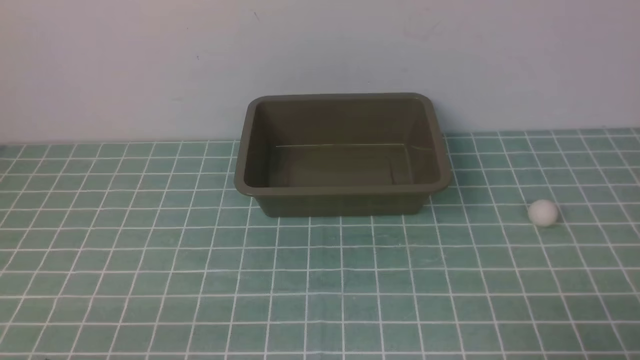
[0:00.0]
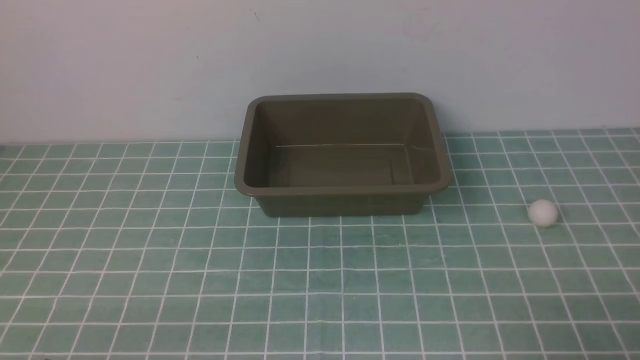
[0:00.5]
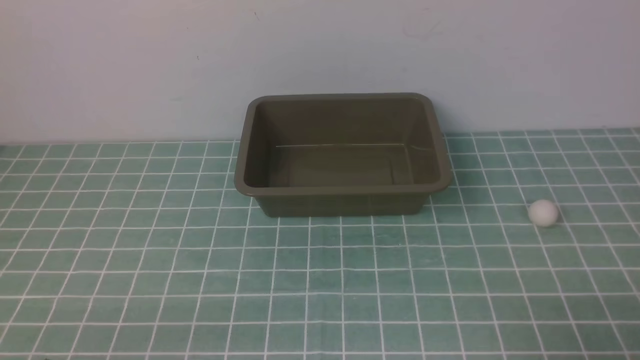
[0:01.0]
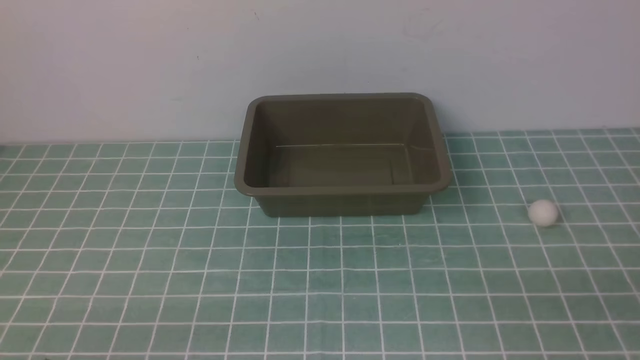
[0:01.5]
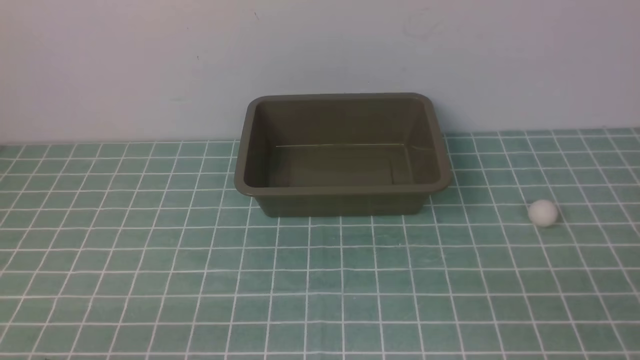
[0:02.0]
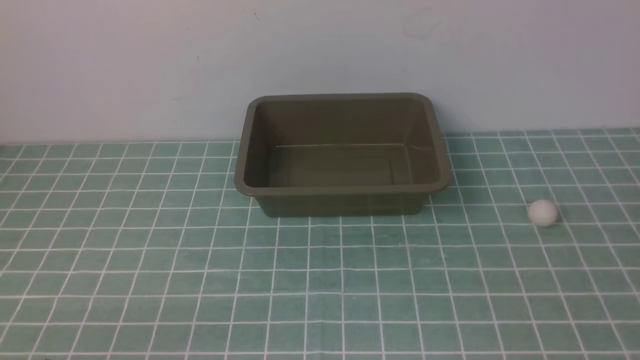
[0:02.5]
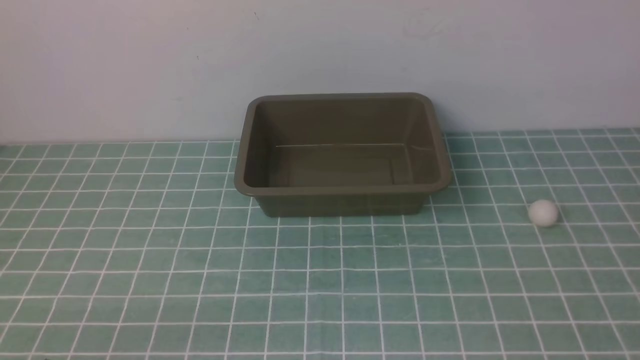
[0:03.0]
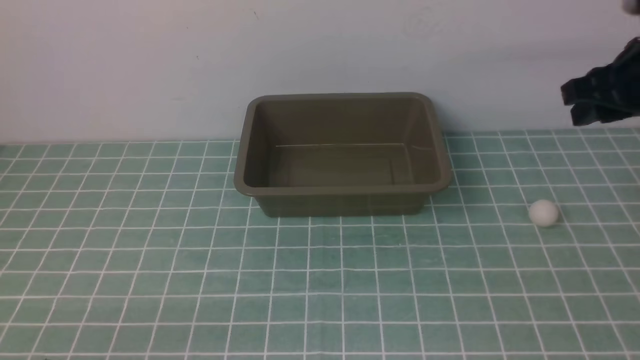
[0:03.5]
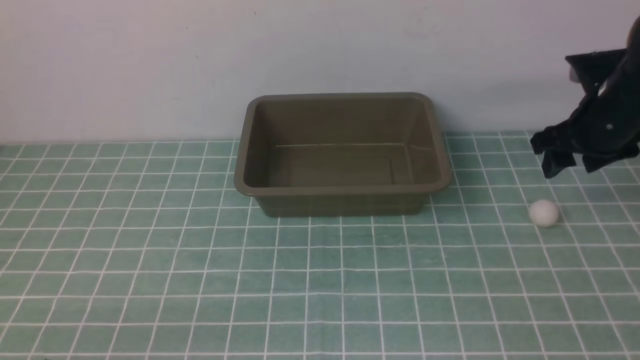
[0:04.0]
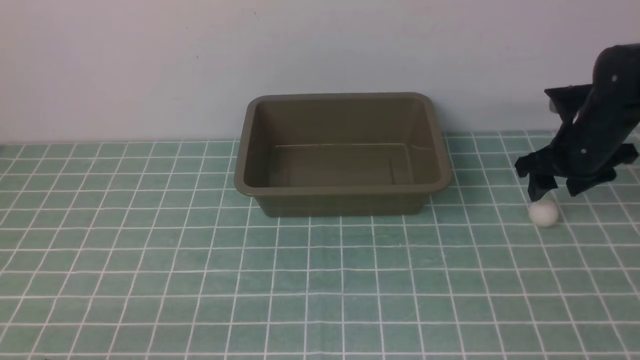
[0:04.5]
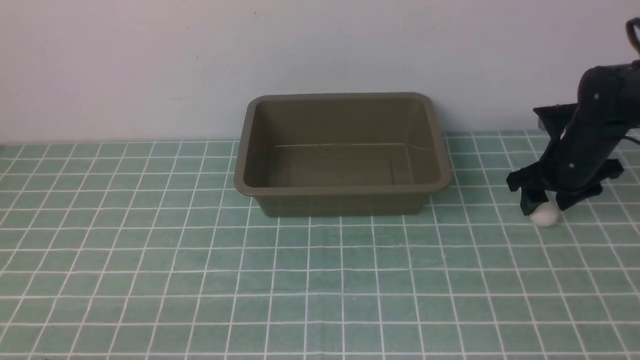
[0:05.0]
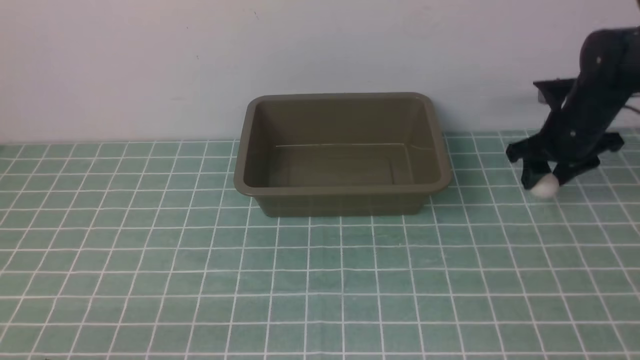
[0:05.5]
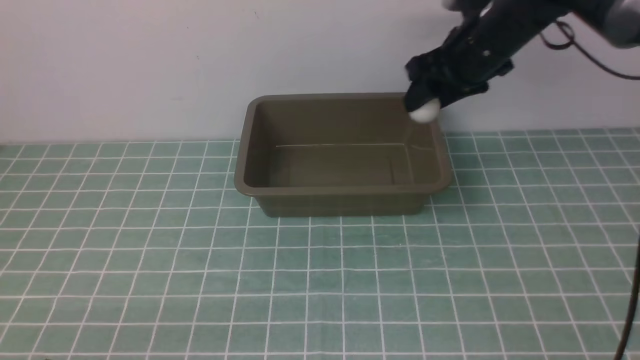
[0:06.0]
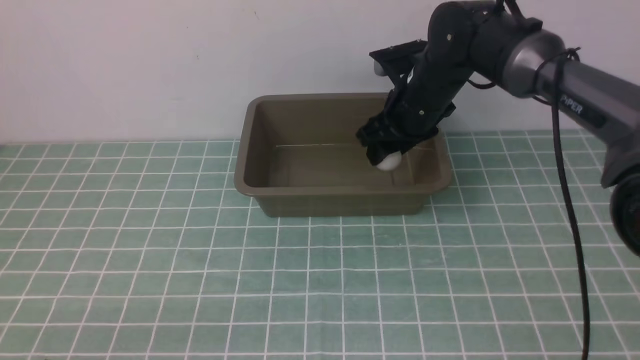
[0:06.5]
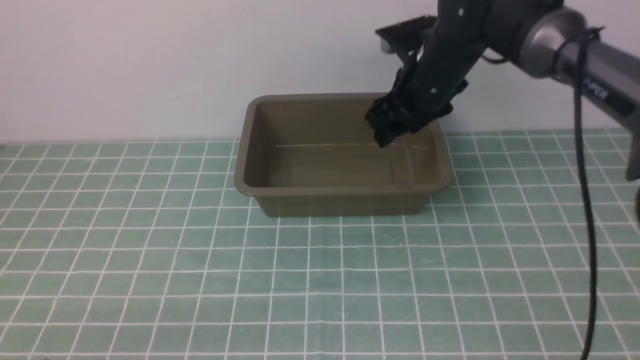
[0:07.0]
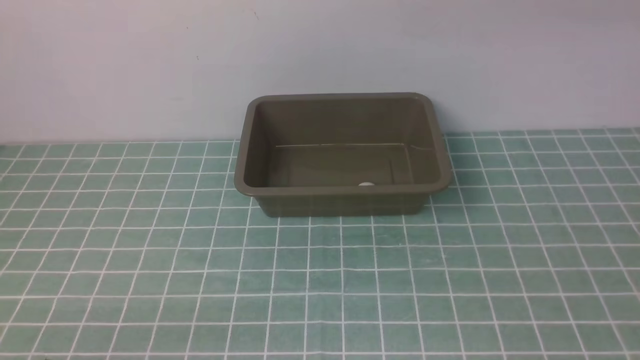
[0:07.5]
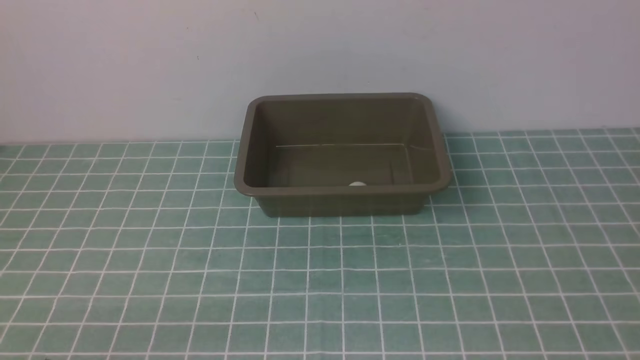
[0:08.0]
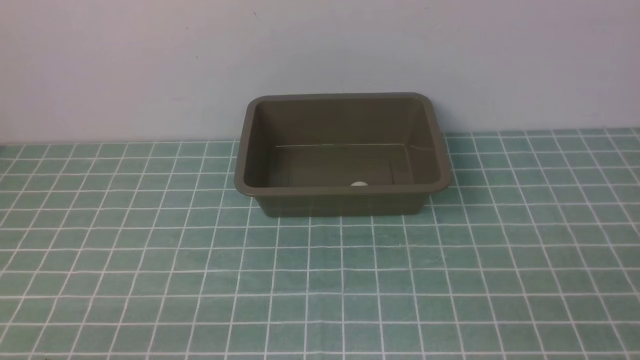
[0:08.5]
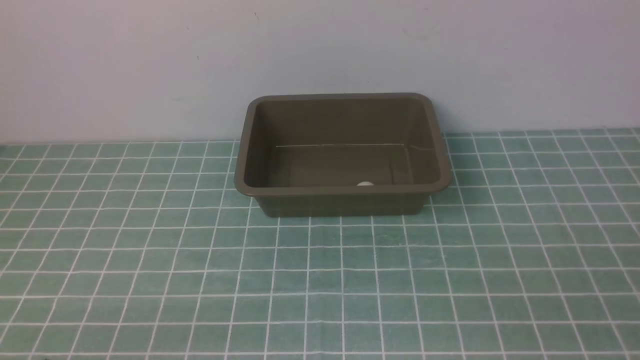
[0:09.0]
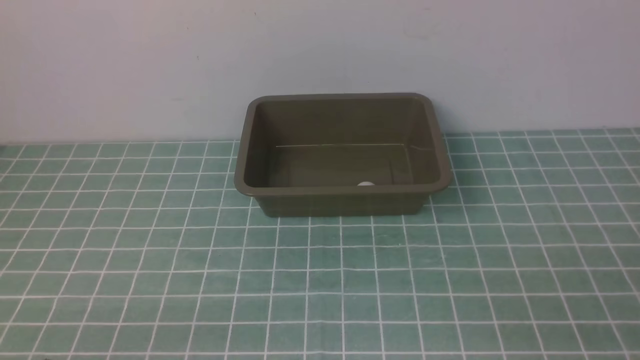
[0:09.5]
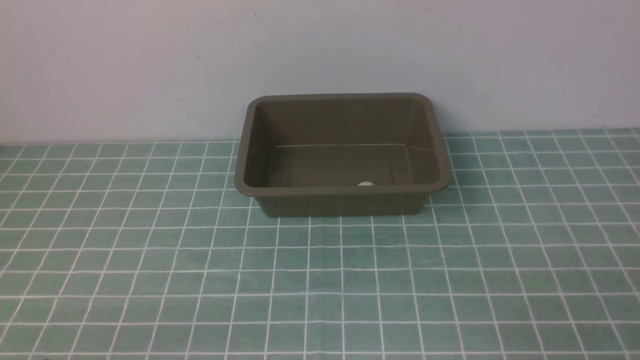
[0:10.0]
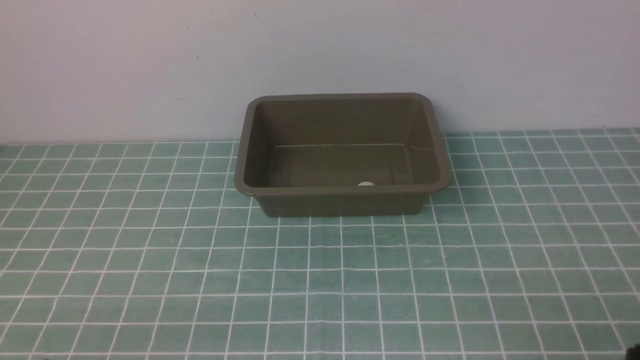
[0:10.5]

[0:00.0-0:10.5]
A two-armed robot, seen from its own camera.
Step, 0:00.0 to 0:05.5: use the right arm to clamp the table tennis ball closest to it.
Step, 0:06.0 to 0:06.5: use the right arm to put the table tennis ball into the box.
0:02.0 to 0:04.0: The right gripper is displaced forward by some 35 cm.
0:04.0 to 0:06.5: The right gripper is displaced to the left by about 20 cm.
0:06.5 to 0:08.5: The right gripper travels backward and to the right by some 50 cm, and closes its fingers.

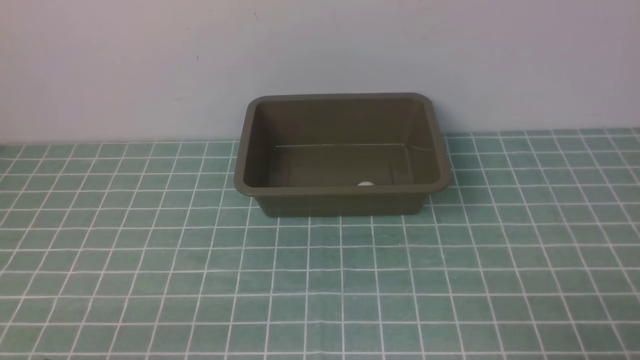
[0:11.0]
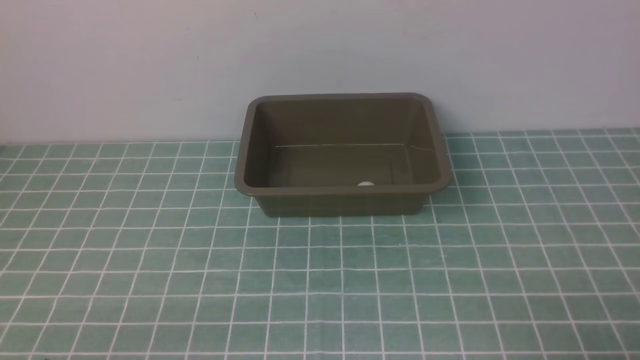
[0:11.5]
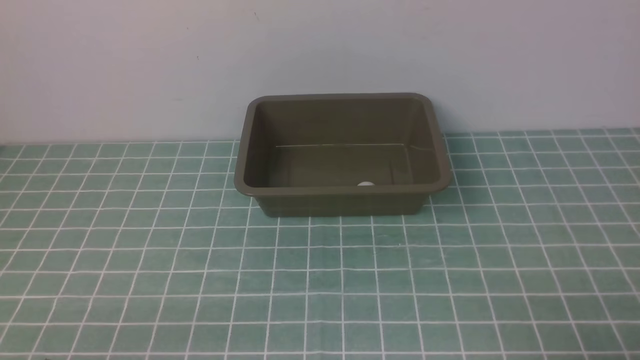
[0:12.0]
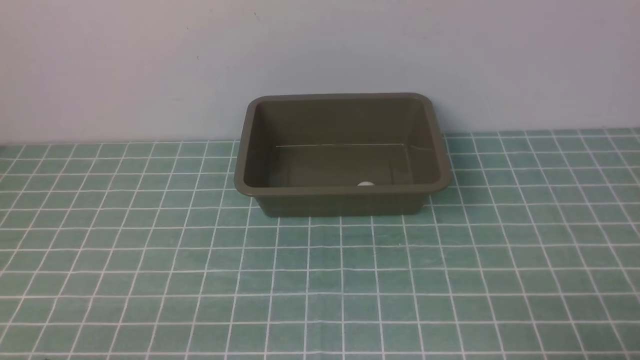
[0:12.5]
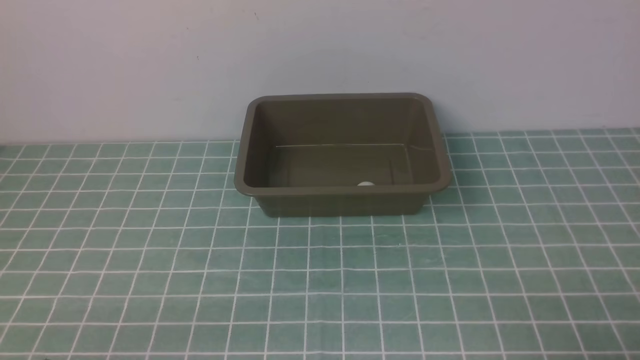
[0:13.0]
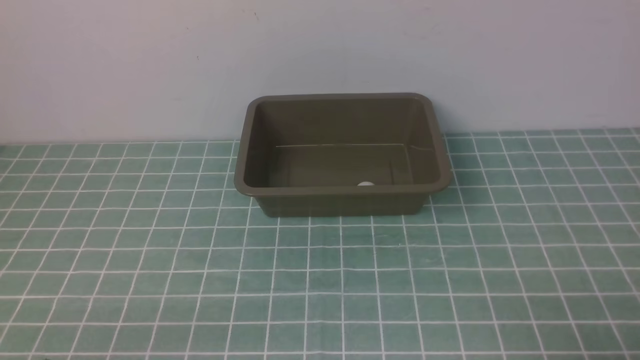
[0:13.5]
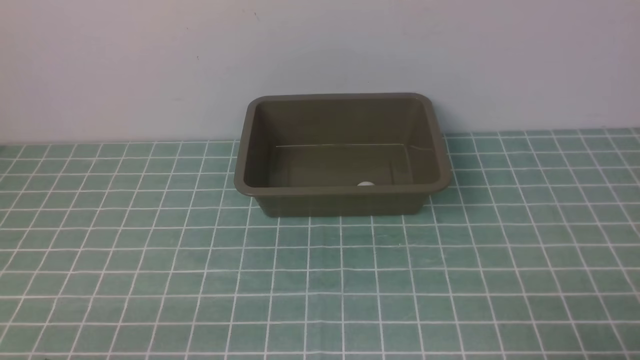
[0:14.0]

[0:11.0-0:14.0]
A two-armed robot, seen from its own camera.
0:11.0 to 0:14.0: Neither gripper changes place.
